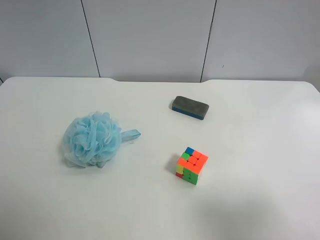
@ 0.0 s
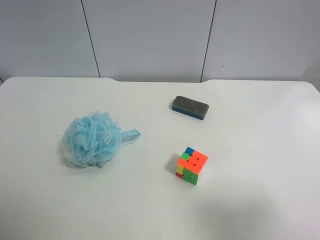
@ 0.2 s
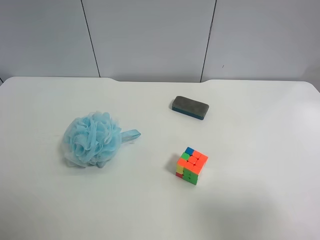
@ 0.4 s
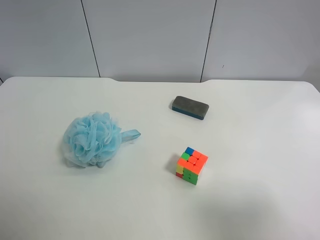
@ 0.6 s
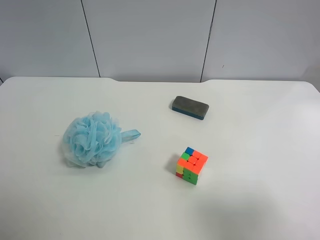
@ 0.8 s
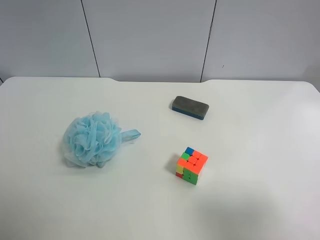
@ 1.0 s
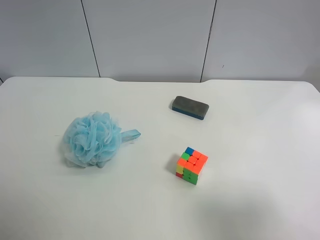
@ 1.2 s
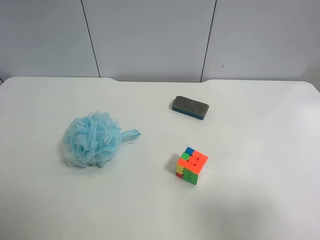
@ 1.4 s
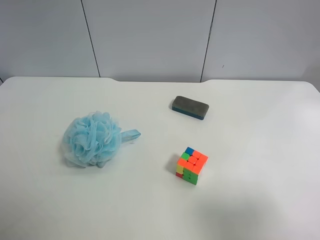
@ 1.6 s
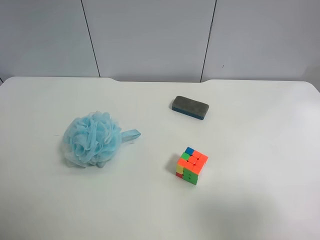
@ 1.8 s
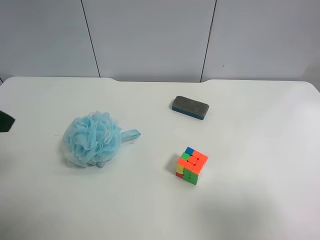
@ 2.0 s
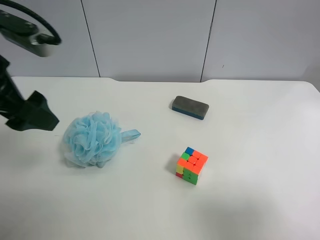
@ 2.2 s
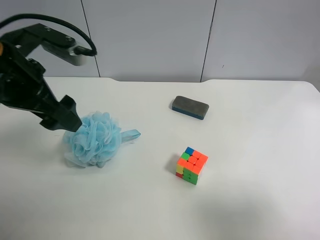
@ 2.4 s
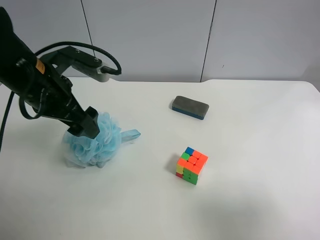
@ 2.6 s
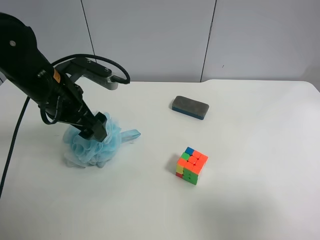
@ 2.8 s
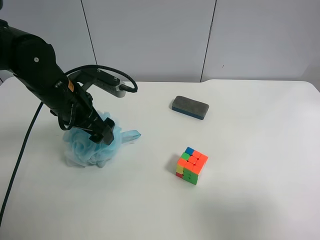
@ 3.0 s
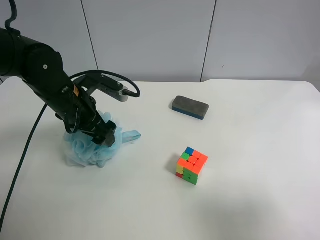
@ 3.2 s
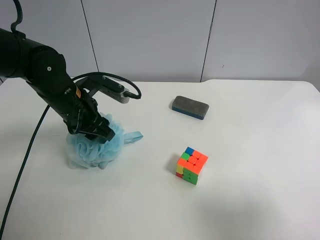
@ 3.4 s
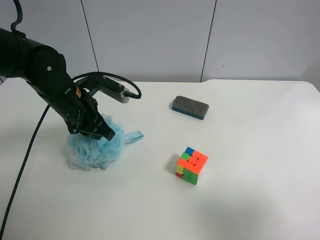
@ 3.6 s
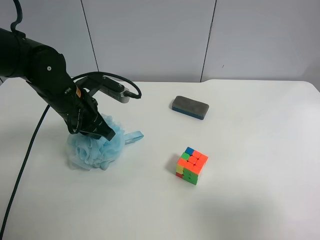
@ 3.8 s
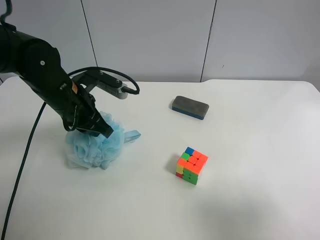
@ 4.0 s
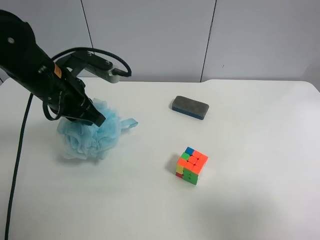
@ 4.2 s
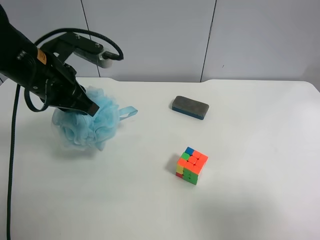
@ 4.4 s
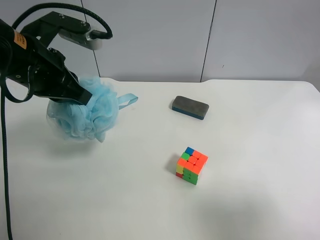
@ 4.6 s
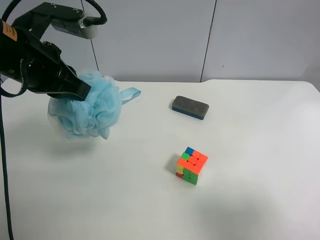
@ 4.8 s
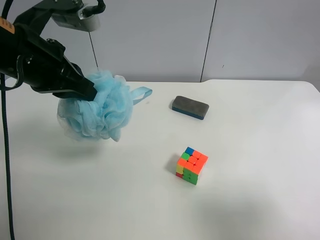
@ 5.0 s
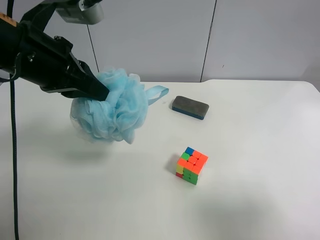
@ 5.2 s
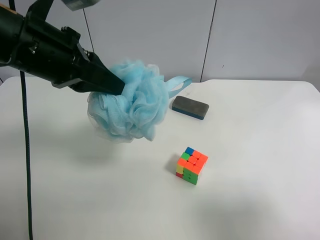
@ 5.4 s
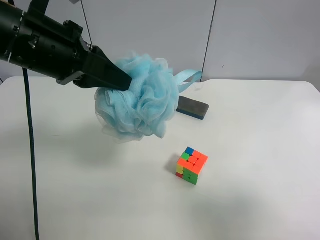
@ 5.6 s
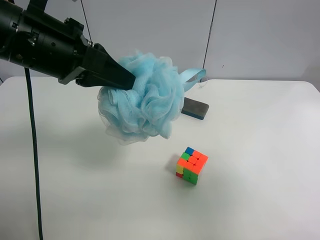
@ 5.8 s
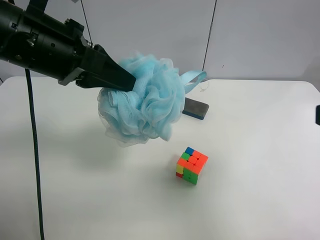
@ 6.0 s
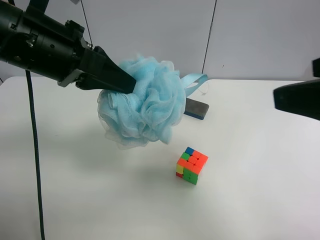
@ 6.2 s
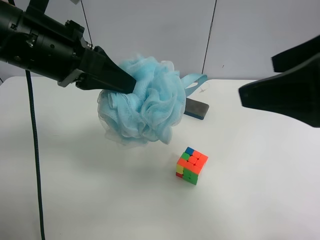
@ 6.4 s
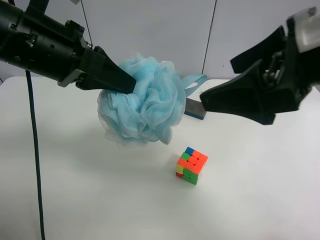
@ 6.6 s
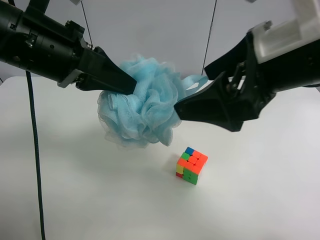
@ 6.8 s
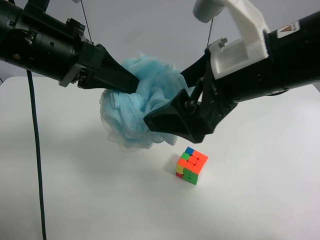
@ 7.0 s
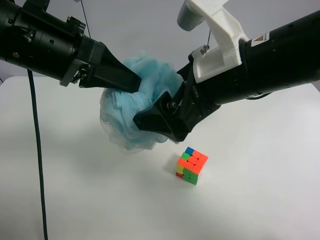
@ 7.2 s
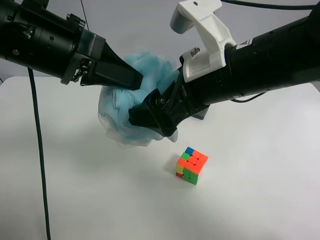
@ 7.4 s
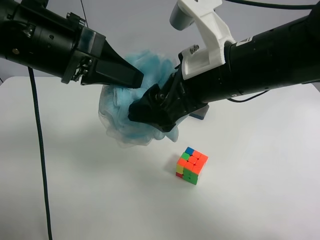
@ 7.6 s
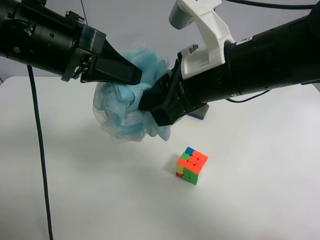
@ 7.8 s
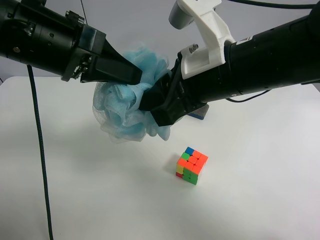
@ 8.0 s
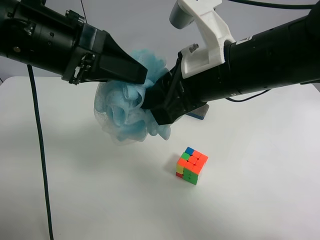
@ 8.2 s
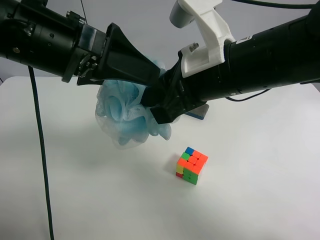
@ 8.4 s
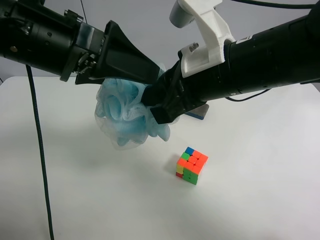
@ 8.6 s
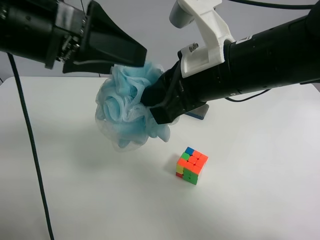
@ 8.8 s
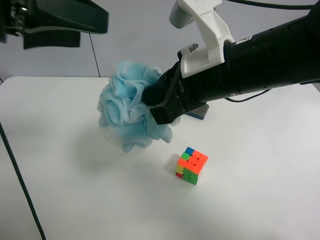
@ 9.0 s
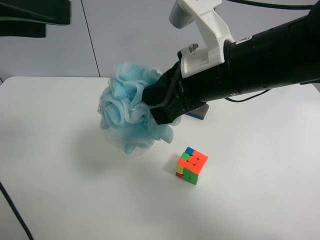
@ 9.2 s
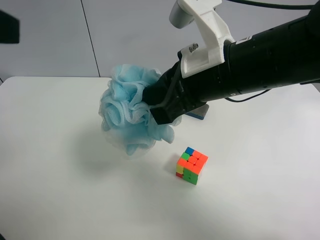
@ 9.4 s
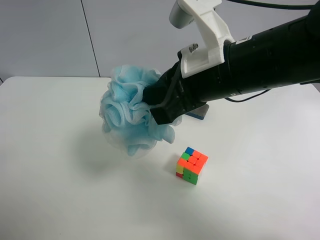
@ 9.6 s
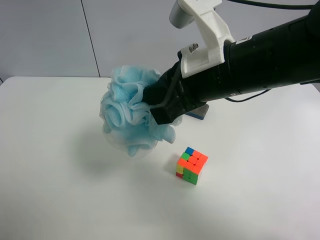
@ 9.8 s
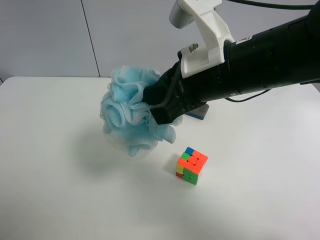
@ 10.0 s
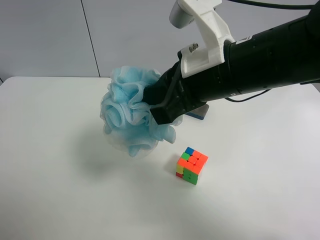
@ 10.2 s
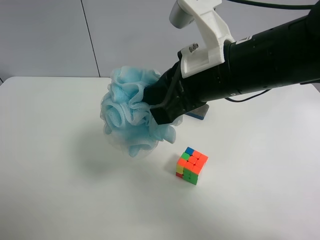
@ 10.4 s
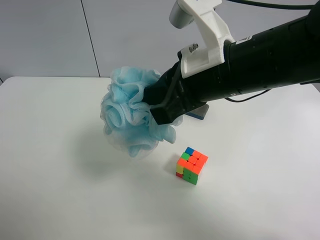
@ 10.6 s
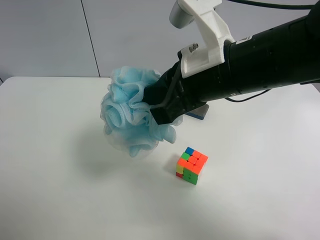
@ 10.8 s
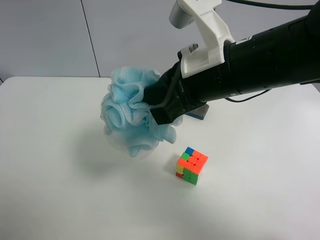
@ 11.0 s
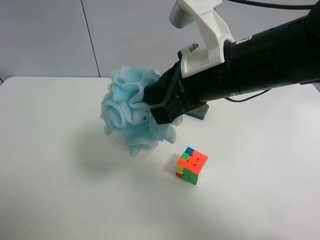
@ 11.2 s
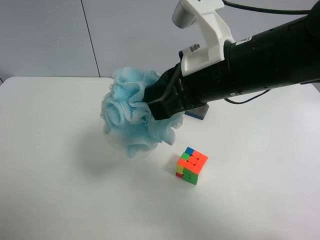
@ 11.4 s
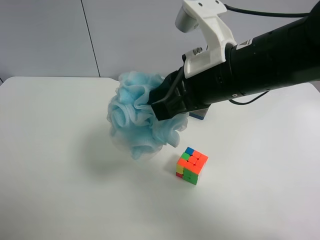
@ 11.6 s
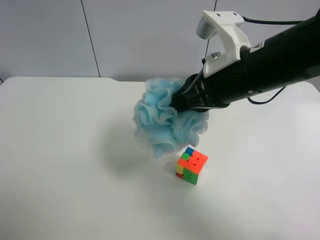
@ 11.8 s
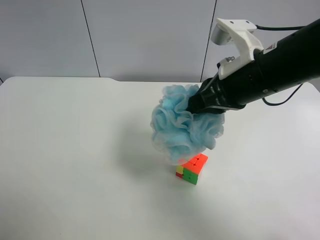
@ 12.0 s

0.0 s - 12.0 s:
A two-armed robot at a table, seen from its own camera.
Task of the whole recording: use the left gripper to pick up the item and transfer it from the left gripper to the right gripper.
1.6 s - 3.0 s: The left gripper shifts approximately 30 cm forward, to the right and downward.
3.0 s - 4.4 s: The left gripper goes about 5 cm upward, and closes.
4.4 s - 6.0 s: The right gripper goes roughly 10 cm forward and upward, while the left gripper heads upward, covering some 5 cm.
6.0 s - 7.6 s: The right gripper shifts about 20 cm to the left and forward.
7.6 s - 9.0 s: The left gripper shifts approximately 10 cm to the left and upward, and opens its fingers; the right gripper closes.
9.0 s - 10.4 s: The left gripper moves backward and to the left, some 25 cm.
10.4 s - 12.0 s: The right gripper is displaced to the right by approximately 5 cm.

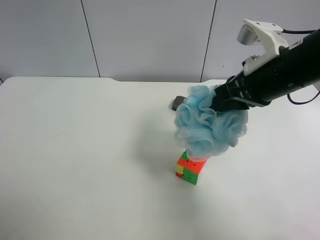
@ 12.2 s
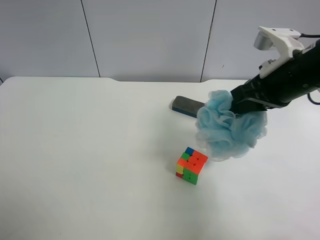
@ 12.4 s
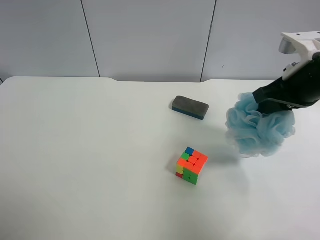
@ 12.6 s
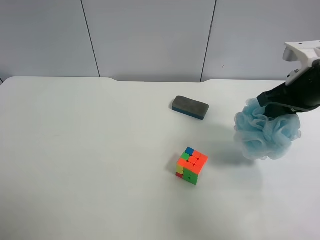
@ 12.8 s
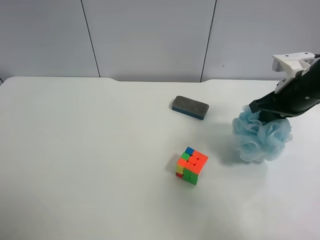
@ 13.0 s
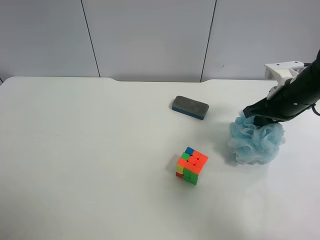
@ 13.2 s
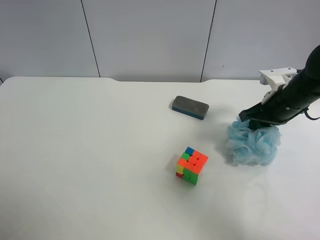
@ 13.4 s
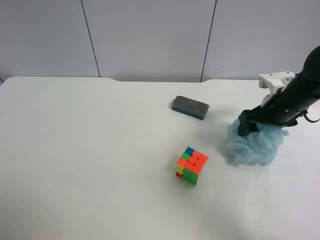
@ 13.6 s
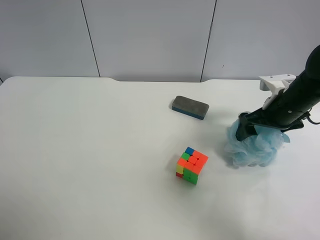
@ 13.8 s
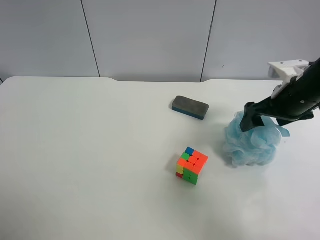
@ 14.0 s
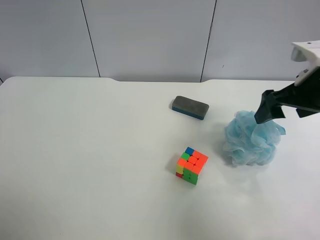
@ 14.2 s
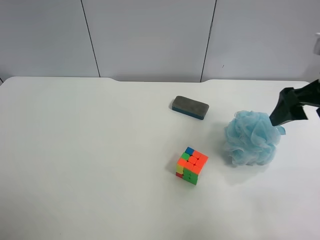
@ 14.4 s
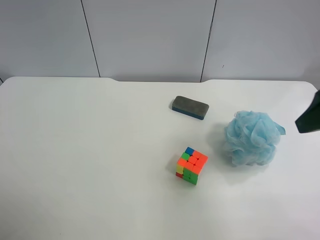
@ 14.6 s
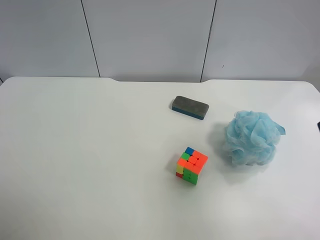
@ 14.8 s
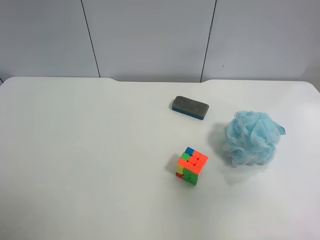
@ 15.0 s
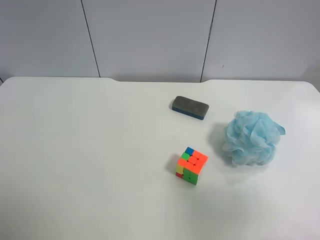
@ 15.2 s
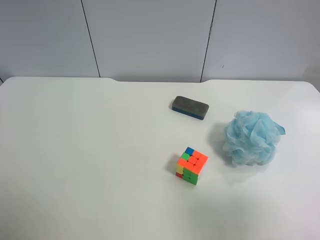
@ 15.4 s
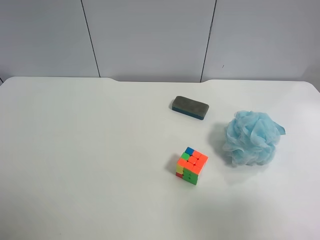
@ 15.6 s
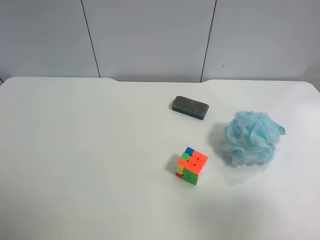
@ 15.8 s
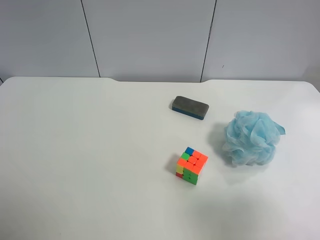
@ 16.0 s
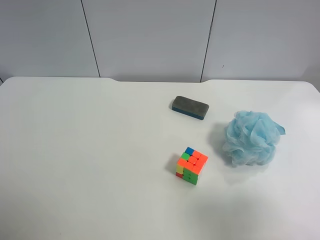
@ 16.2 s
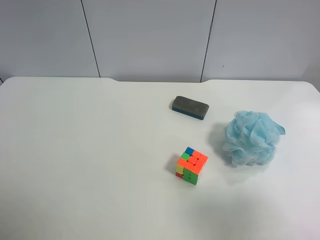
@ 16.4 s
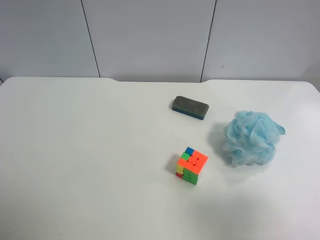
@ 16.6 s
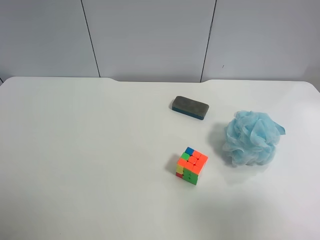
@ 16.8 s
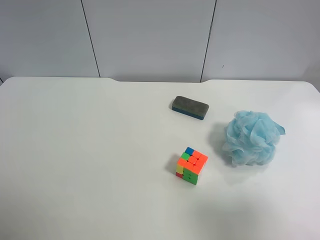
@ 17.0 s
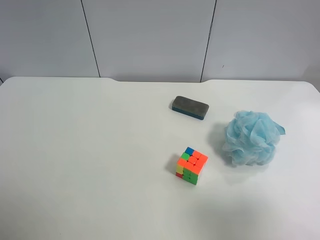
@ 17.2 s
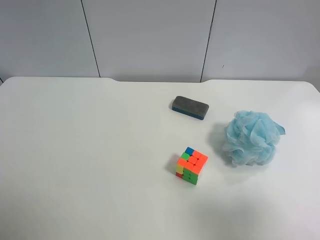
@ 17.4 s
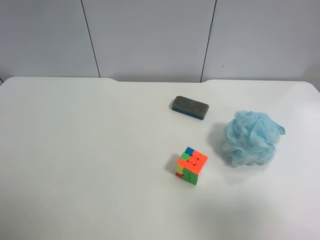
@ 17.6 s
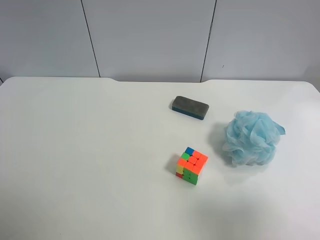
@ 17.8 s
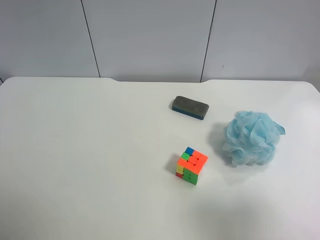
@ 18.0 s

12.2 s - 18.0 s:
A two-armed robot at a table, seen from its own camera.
Task of the whole recording: use the left gripper to pick up the item and transfer it from the left gripper to the right gripper.
12.2 s - 13.6 s: The right gripper shifts about 15 cm downward, to the right and forward, and opens.
13.6 s - 15.0 s: The right gripper shifts approximately 30 cm backward and upward.
15.0 s - 16.6 s: The right gripper shifts by some 5 cm.
